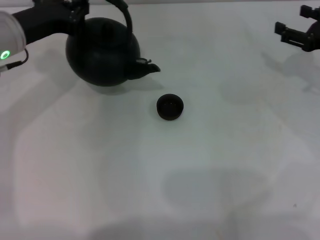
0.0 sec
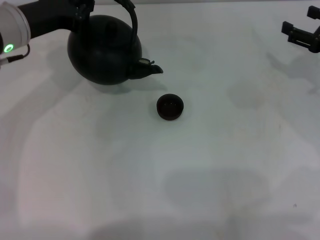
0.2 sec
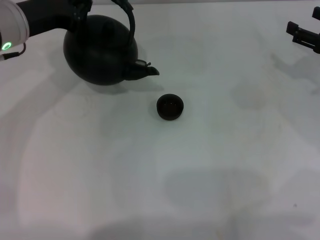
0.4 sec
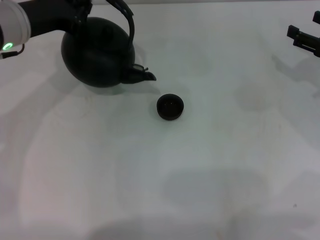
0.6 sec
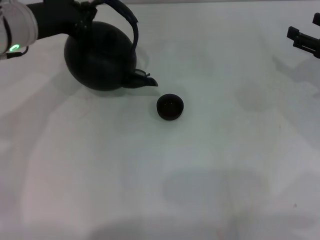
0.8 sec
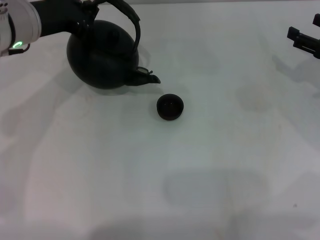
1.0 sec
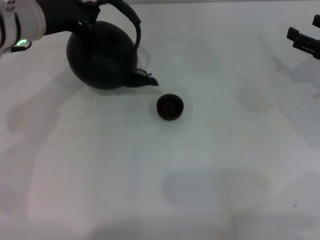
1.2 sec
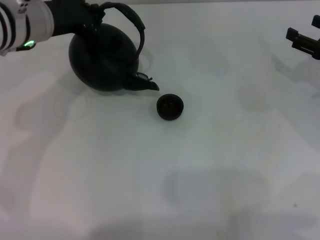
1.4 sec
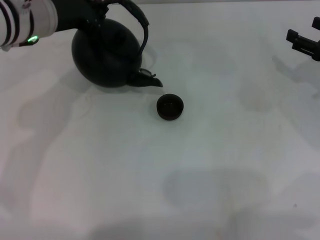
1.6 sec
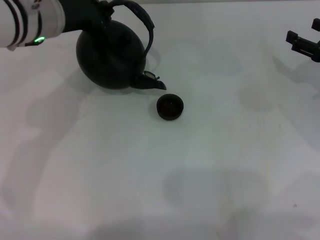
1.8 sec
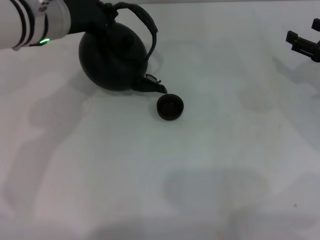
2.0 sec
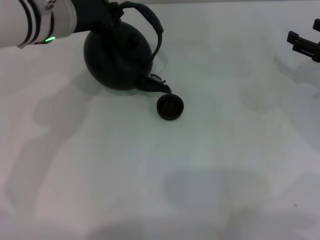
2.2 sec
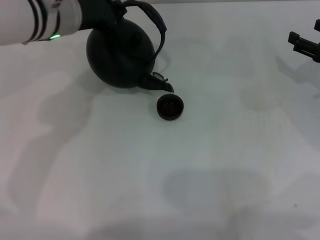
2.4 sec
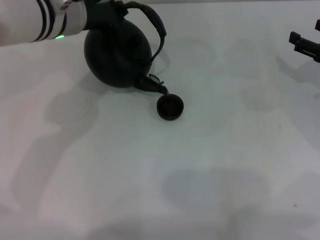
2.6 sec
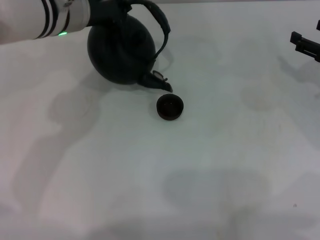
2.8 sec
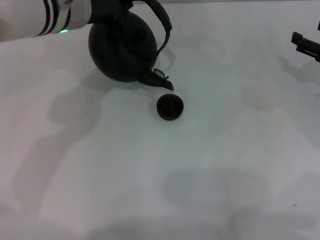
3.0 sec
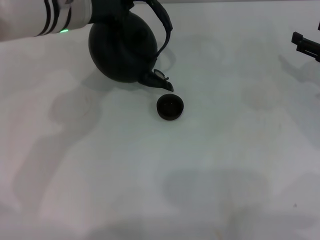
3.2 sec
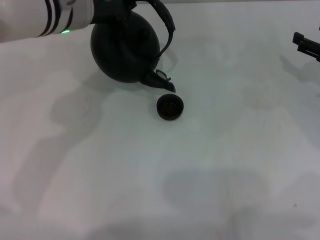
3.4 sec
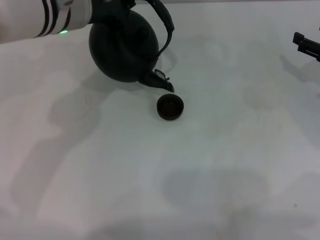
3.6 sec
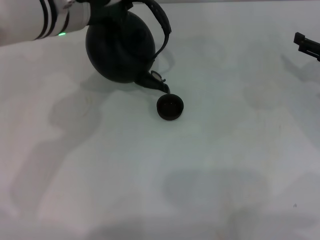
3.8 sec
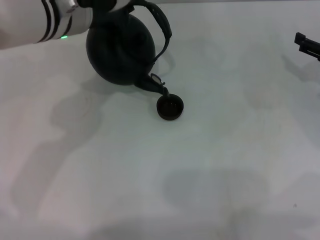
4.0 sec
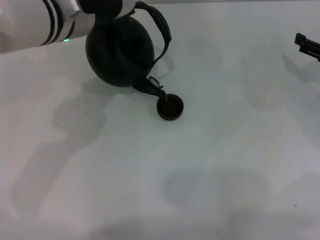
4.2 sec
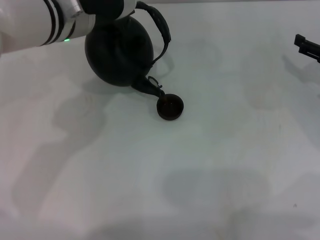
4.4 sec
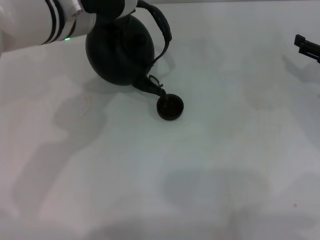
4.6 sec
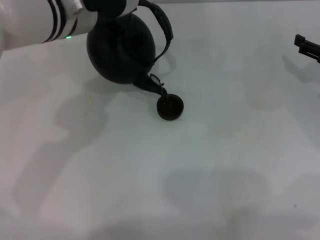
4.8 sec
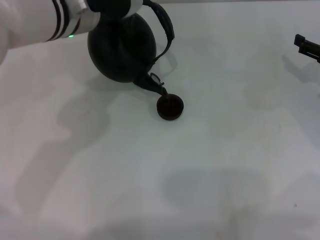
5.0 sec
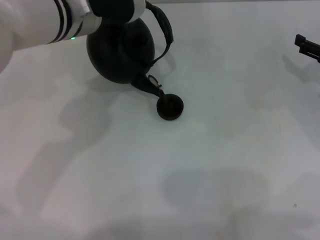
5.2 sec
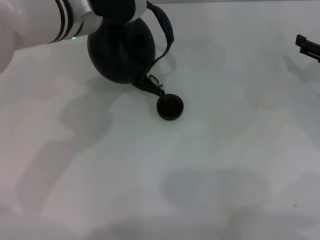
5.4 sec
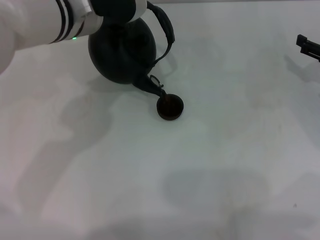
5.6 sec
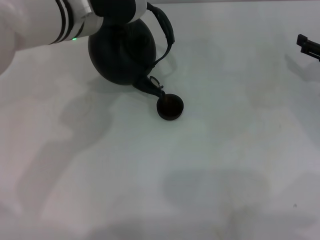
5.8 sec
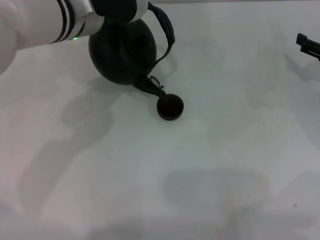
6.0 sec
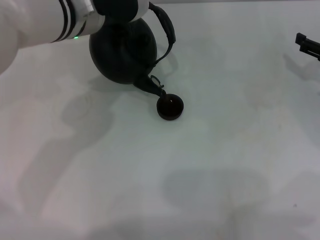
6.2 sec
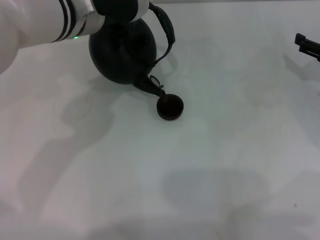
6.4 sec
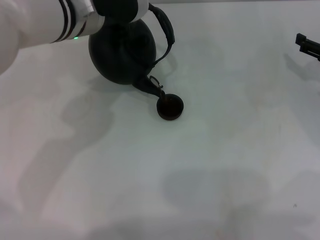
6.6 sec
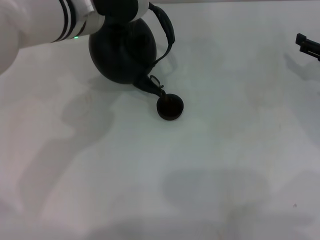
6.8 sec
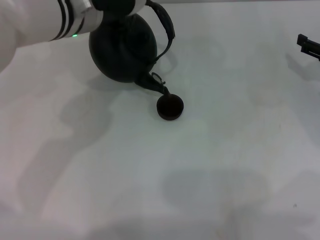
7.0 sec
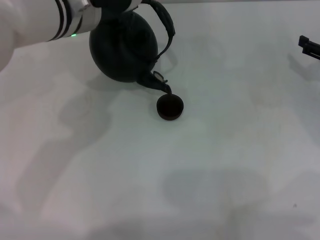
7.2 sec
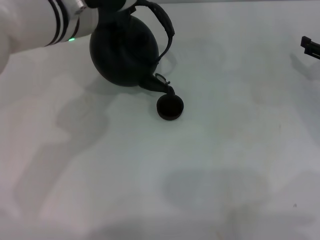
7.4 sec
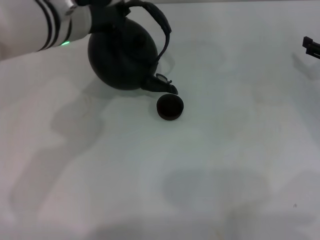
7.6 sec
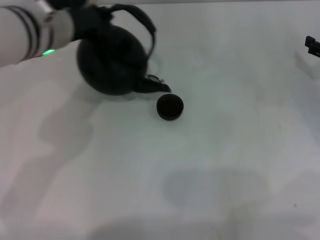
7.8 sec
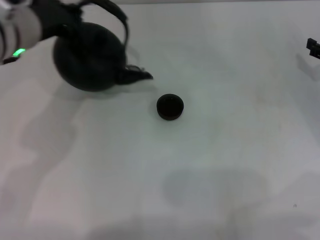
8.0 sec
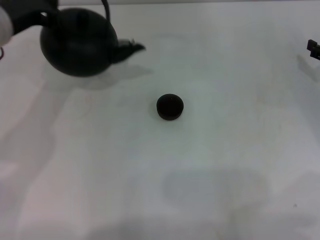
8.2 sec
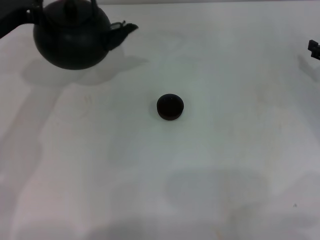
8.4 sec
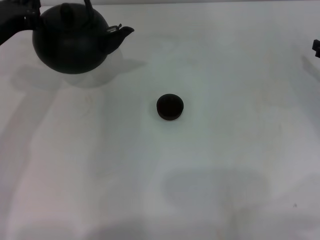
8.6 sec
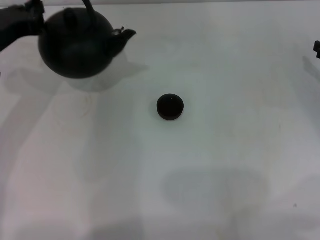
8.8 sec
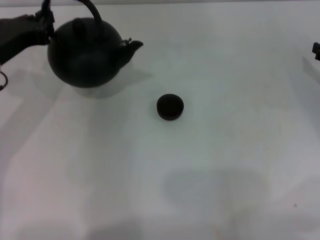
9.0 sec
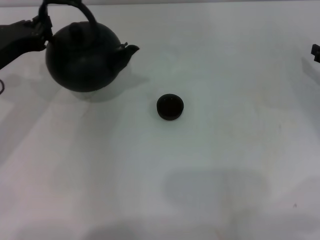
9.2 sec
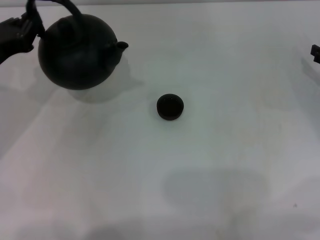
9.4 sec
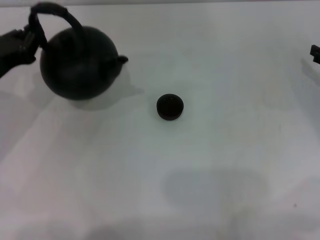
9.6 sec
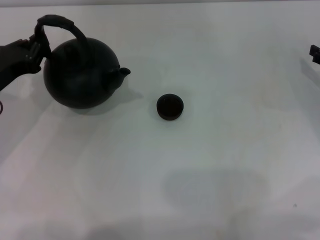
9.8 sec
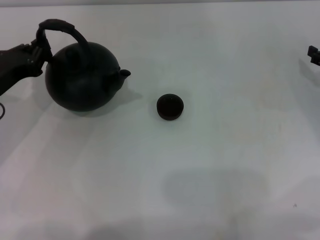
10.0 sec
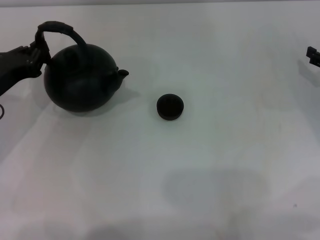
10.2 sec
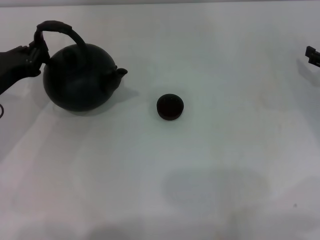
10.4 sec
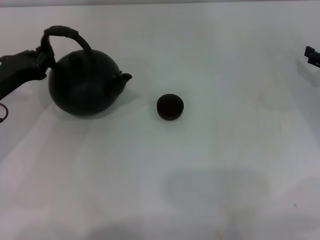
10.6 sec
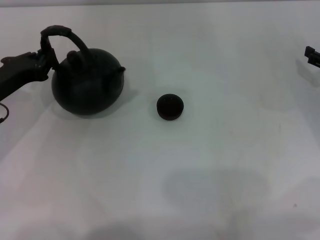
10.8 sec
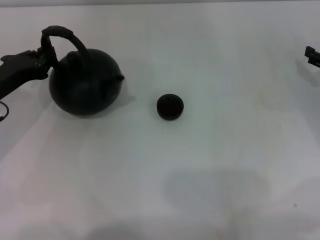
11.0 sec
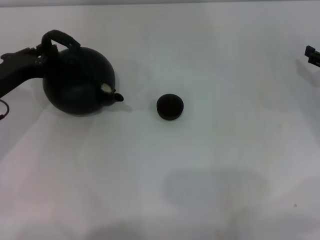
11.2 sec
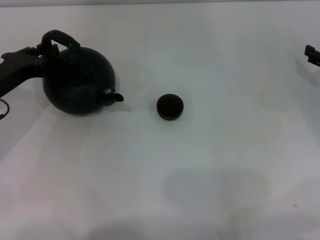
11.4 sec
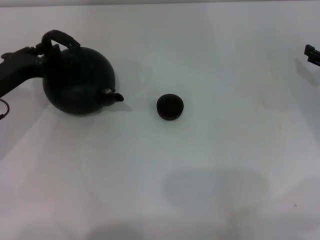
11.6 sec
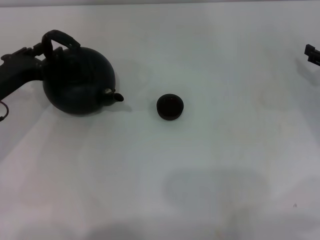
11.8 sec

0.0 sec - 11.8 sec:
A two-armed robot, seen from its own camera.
Task of the whole recording: Grasp the handle of the teapot with one hand and pour tea into the teacup.
Step, 0.0 sec - 7.6 sec: Pour tea into the teacup with the left gripper.
0.0 sec - 1.4 sec: The left gripper moves some 5 cm.
1.4 sec - 3.0 sec: The left gripper heads to the right, covering approximately 5 cm.
3.0 sec - 4.4 sec: There are only small adjustments of the grippers.
4.4 sec - 6.0 sec: The two grippers keep their place.
6.0 sec - 7.4 sec: The grippers move only a little.
7.4 sec - 8.8 sec: The left gripper goes about 15 cm to the left.
8.8 sec - 10.4 sec: The left gripper heads downward, covering some 5 cm.
10.4 sec - 11.8 sec: The left gripper opens.

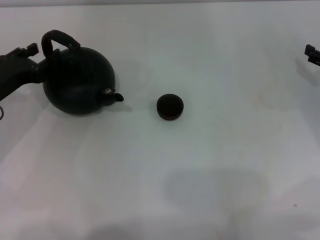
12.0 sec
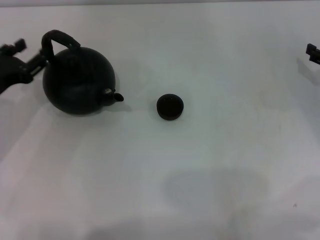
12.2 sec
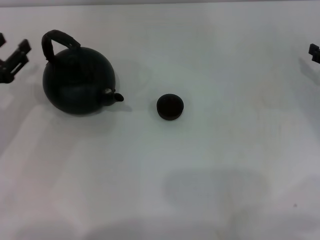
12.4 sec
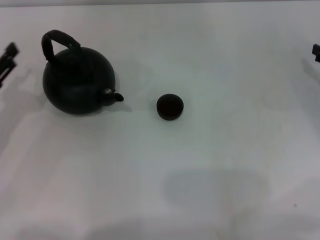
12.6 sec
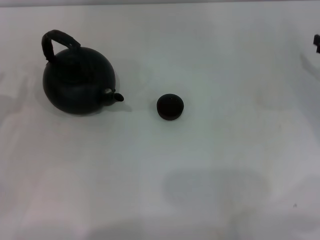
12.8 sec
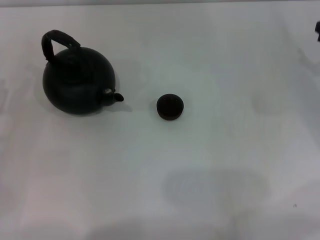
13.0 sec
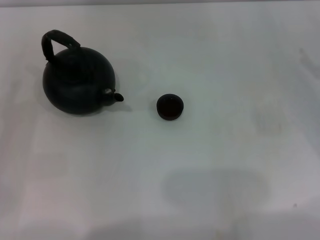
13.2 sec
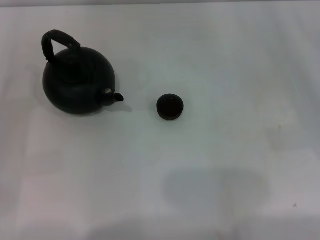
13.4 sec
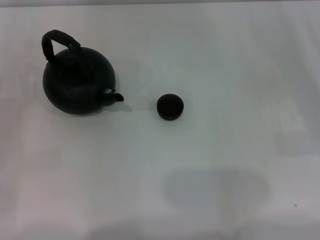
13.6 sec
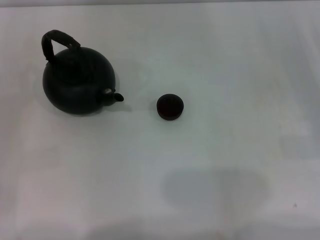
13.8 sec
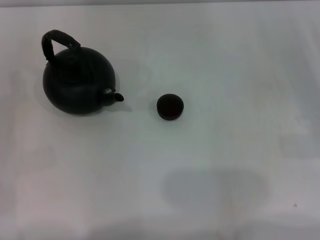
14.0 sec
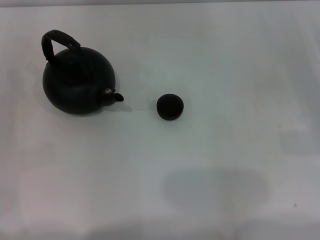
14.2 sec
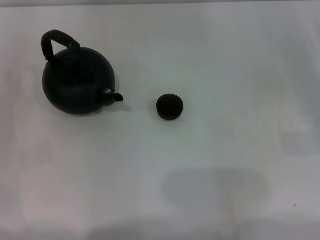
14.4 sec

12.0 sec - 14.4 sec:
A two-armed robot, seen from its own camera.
Task of the whole recording: Grasp the handle of the teapot with one hand and pour tea into the teacup.
12.0 sec - 13.2 sec: The left gripper shifts roughly 10 cm backward and to the left.

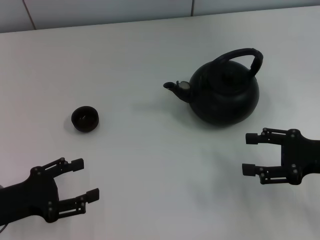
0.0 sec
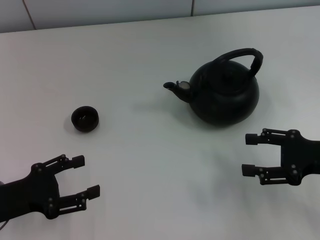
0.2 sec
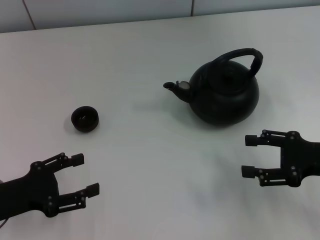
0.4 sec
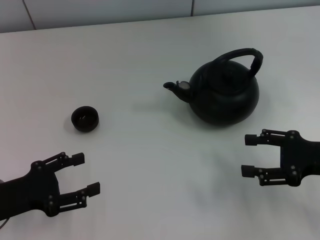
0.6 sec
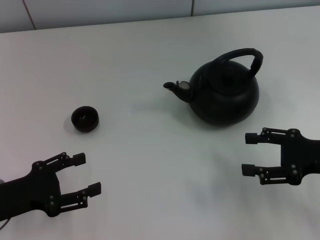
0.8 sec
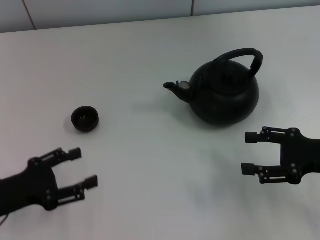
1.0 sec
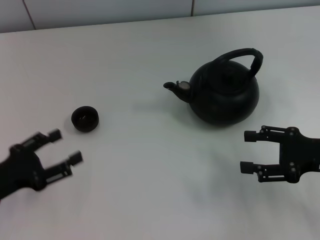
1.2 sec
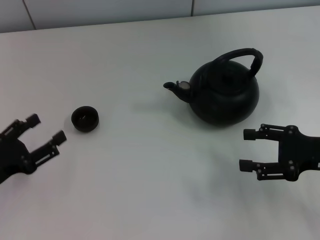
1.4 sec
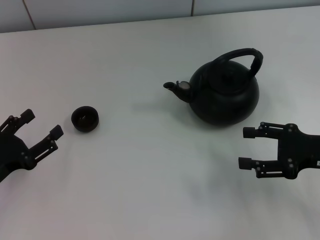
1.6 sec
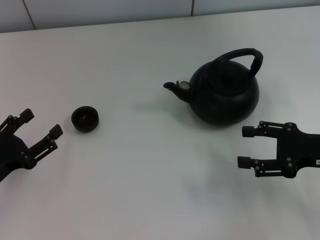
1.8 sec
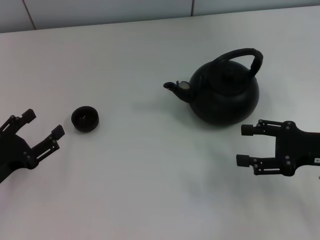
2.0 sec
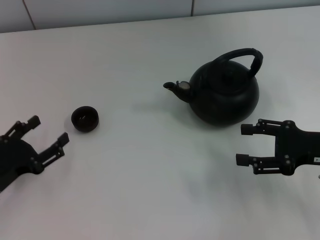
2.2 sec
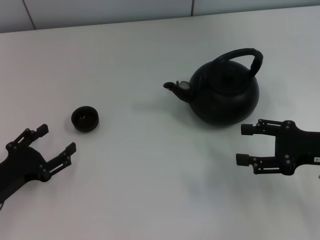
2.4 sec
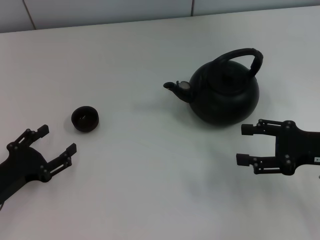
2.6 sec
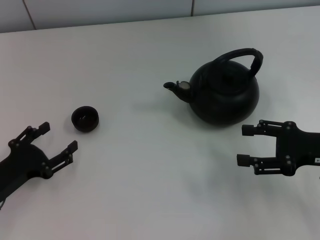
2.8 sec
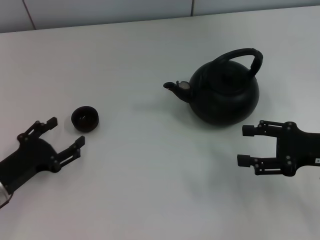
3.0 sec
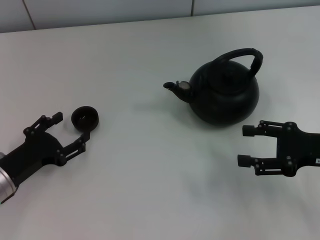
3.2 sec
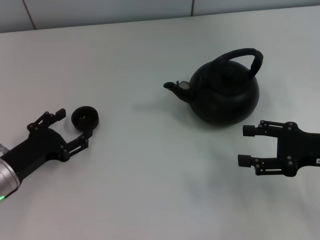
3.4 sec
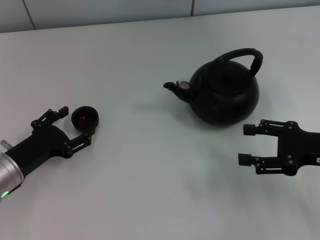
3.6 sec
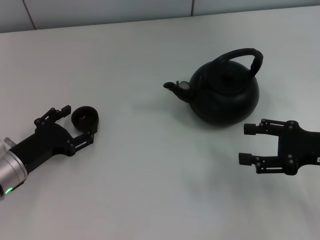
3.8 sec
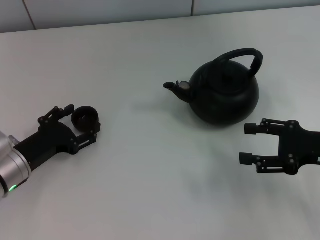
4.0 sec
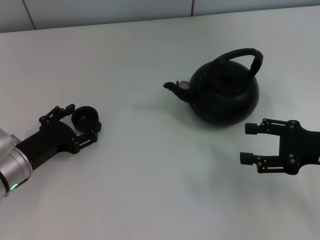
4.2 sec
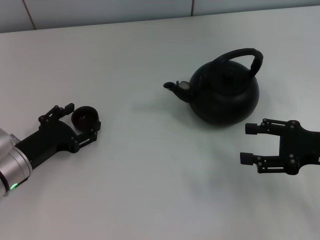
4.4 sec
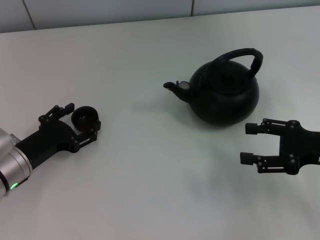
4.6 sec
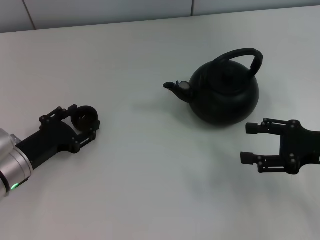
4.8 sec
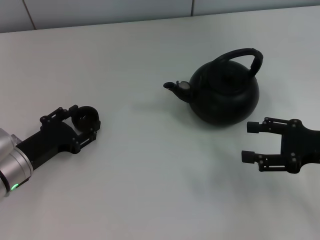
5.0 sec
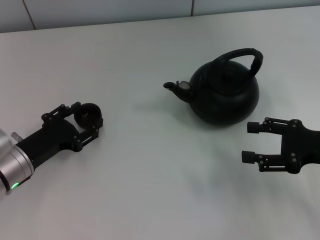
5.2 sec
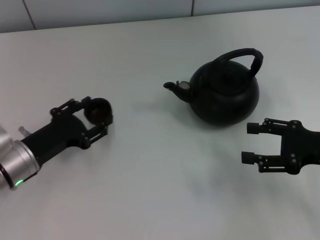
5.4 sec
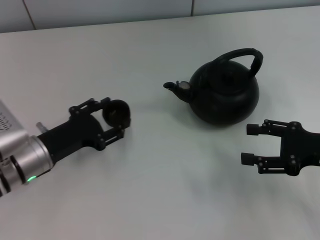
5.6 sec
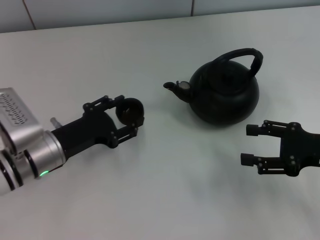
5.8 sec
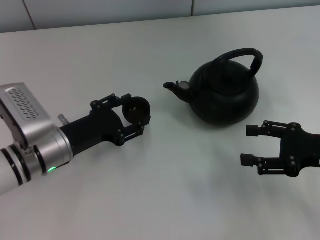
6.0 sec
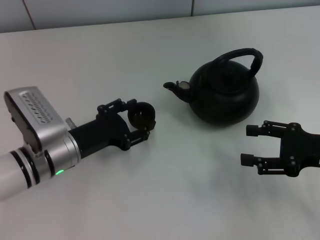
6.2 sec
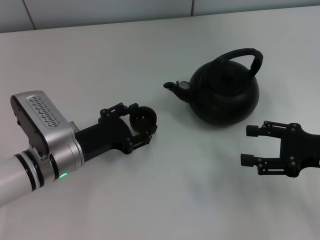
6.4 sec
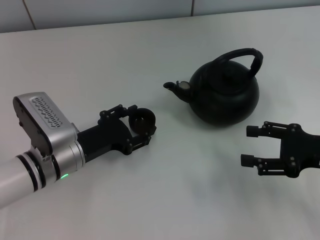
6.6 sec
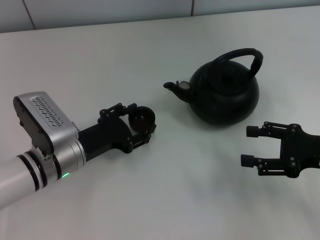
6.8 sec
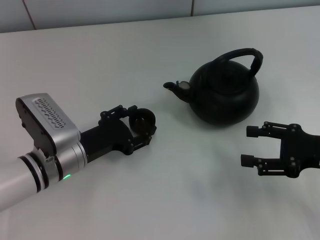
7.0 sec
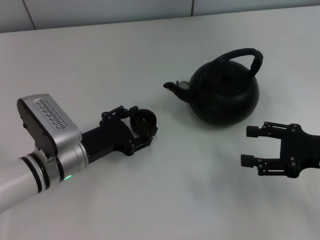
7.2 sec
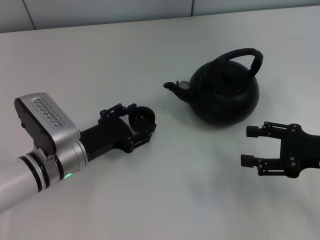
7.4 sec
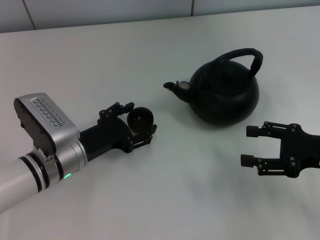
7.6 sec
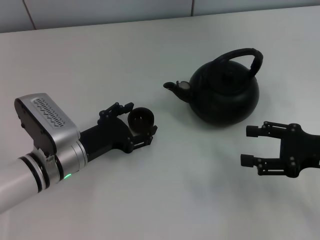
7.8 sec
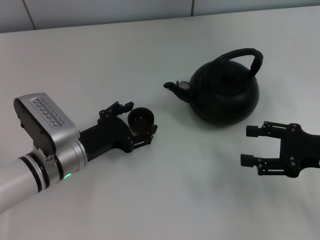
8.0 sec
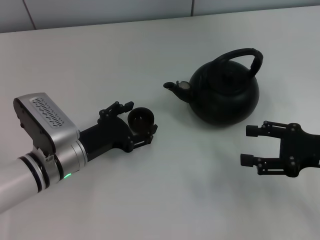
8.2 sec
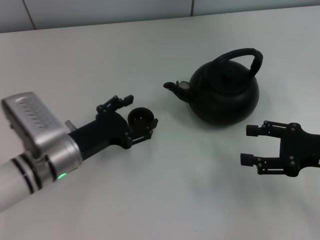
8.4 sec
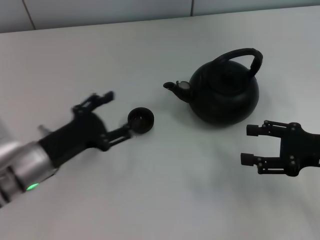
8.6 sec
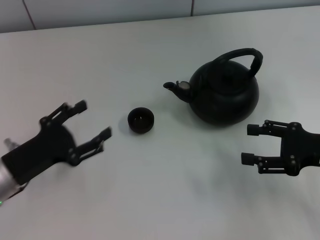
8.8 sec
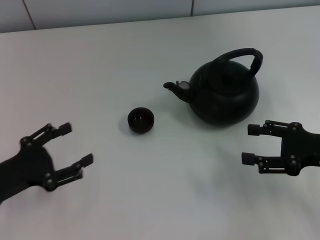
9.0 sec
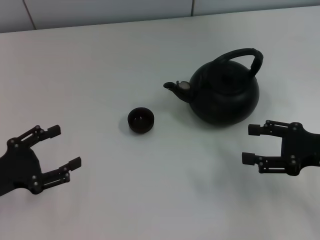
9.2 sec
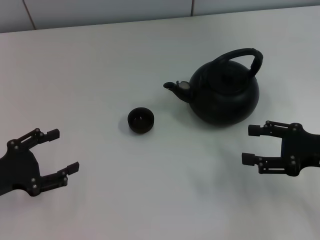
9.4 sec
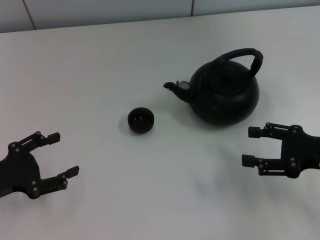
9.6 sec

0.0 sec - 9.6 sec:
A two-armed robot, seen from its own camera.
Task of the whole recording: Grasp the handle of the teapot with one hand and pour tea into the teacup.
Step, 0.0 sec - 5.2 sec: Pick up the teacup with the left gripper.
Step, 5.4 sec - 8.6 sec: Place the teacup in the center of view with the left gripper.
1.6 sec - 3.2 sec: The grippers make only small movements.
3.2 sec - 4.8 sec: The grippers make only small movements.
4.8 sec - 6.4 sec: The left gripper is displaced to the right by some 5 cm, and closes its fingers.
6.4 sec - 8.0 sec: The left gripper opens up.
8.0 sec - 9.6 sec: The left gripper travels to the left and backward by some 15 cm.
